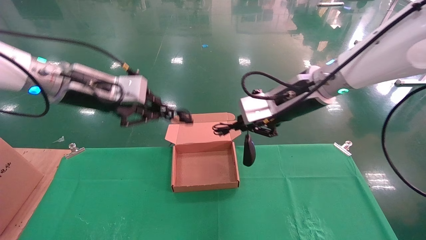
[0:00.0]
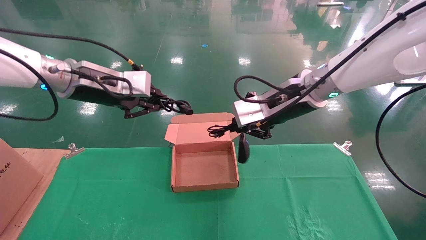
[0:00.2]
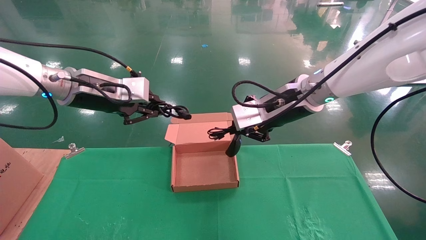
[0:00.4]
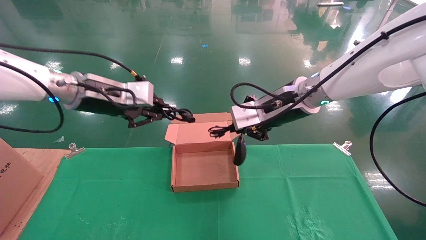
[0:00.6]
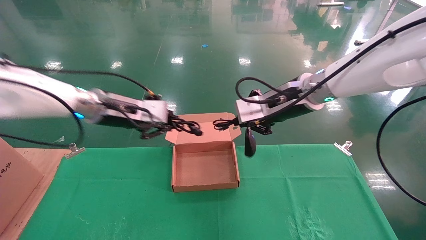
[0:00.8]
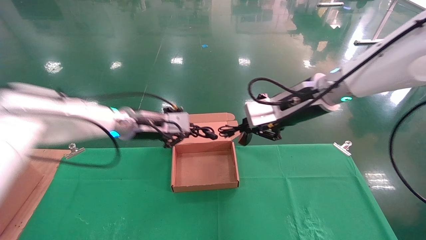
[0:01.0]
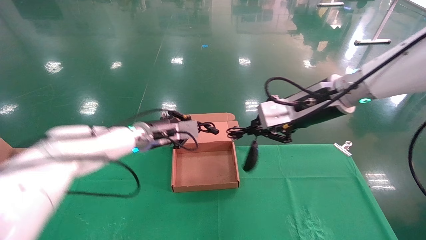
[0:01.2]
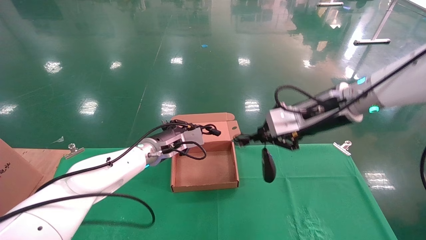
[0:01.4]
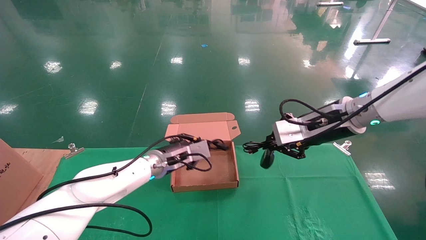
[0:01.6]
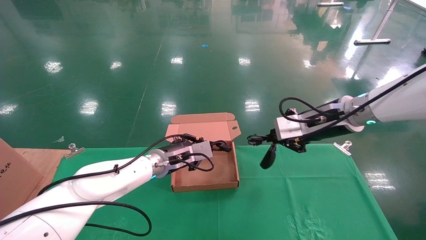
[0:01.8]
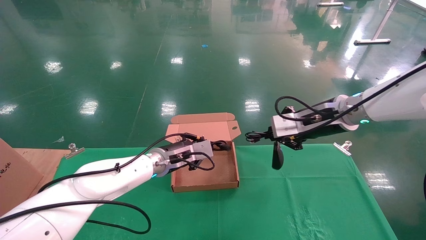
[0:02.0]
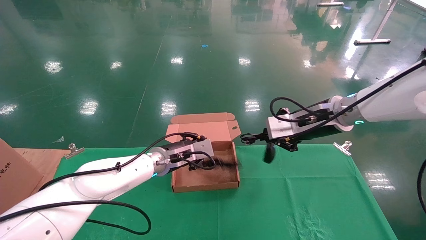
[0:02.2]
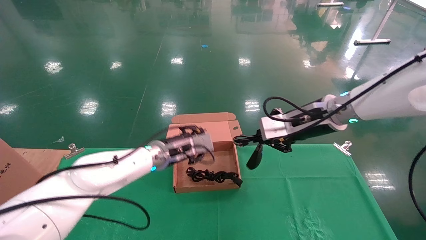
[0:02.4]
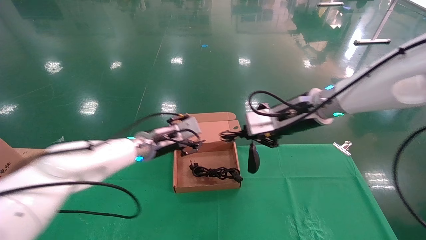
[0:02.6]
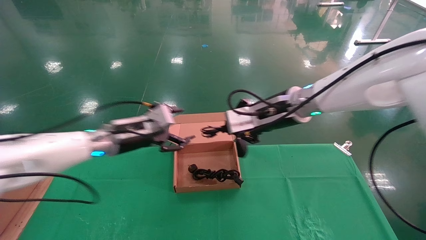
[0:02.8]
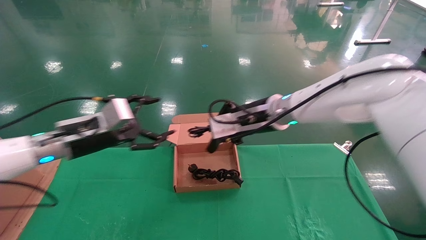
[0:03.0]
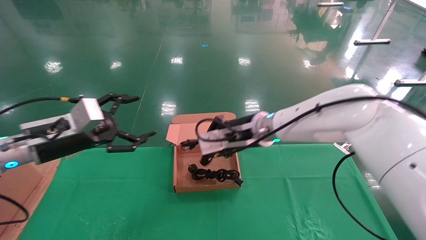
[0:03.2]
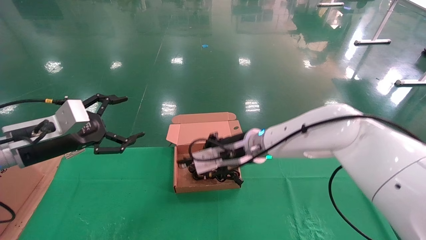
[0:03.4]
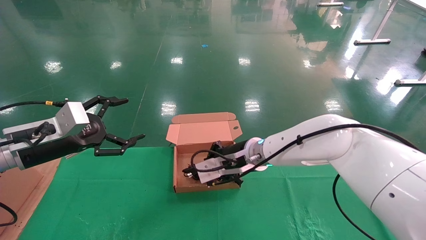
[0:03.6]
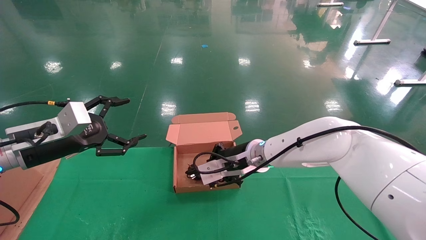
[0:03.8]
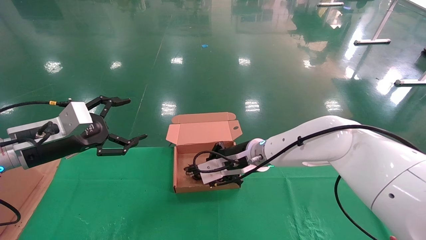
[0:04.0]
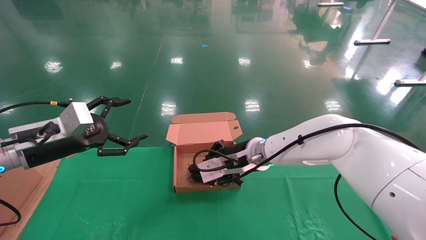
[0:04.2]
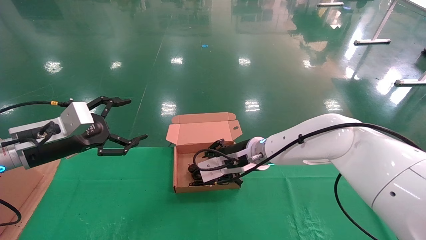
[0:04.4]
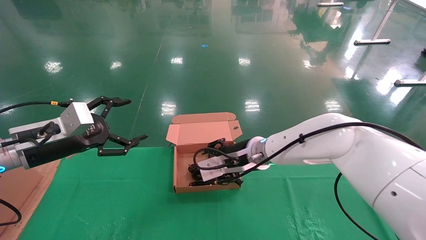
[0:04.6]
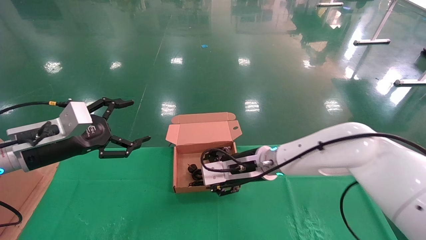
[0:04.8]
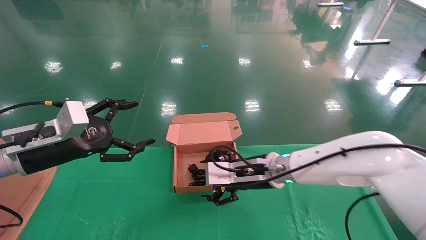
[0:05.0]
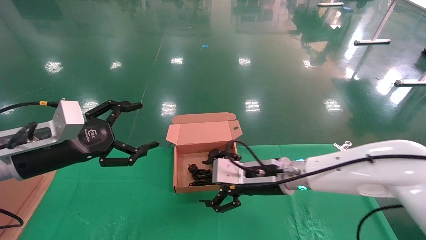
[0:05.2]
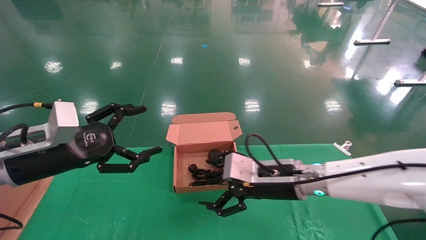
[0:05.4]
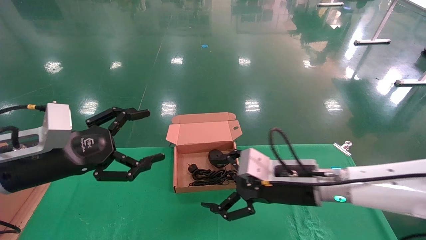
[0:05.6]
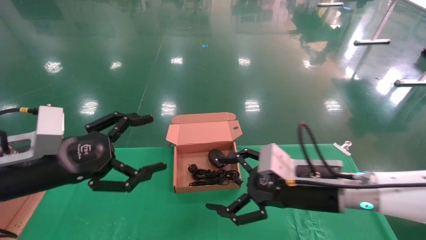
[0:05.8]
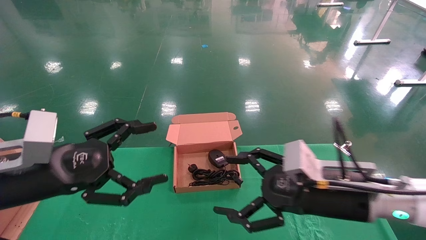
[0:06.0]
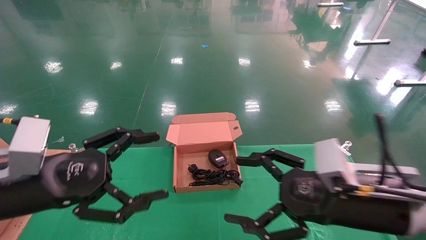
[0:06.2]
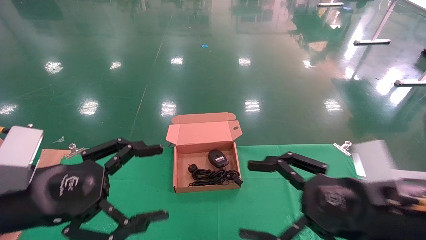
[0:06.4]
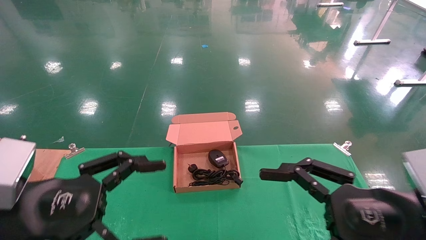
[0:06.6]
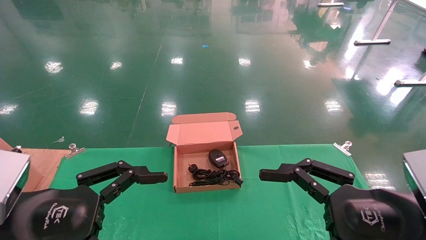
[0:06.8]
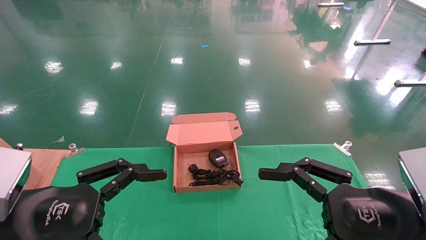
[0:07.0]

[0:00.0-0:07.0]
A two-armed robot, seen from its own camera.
Step, 0:00.2 to 0:05.0: Place the mouse and power cord into the box.
0:00.0 to 0:01.4: The left gripper shifts roughly 20 cm downward, to the right and forward. The right gripper shifts by approximately 5 cm.
0:01.4 to 0:02.8: The right gripper shifts about 10 cm to the left, while the left gripper goes approximately 10 cm to the left and backward, and opens its fingers.
0:02.8 to 0:04.2: The left gripper travels to the left and backward by approximately 15 cm, and opens, while the right gripper heads downward and to the left, covering about 15 cm.
0:04.2 to 0:05.6: The left gripper shifts some 5 cm backward; the right gripper heads backward and to the right, covering roughly 15 cm, and opens.
0:05.6 to 0:07.0: The right gripper moves backward and to the right, roughly 20 cm; the left gripper shifts about 10 cm backward.

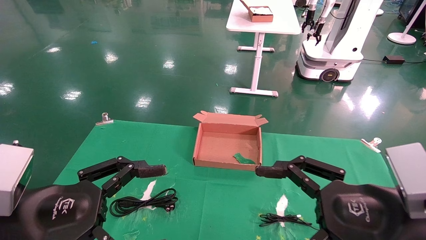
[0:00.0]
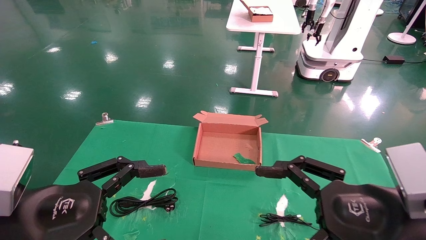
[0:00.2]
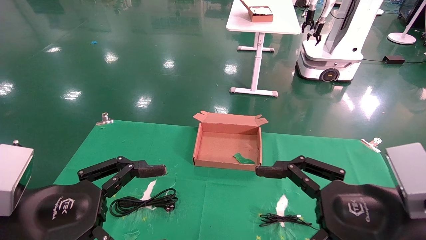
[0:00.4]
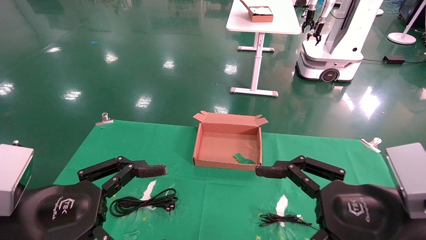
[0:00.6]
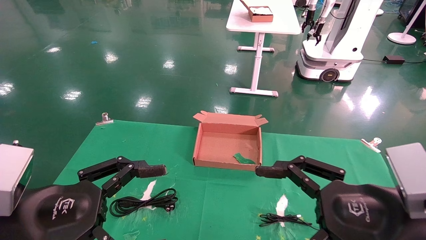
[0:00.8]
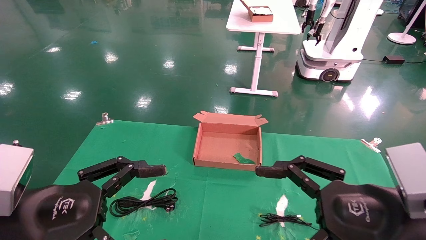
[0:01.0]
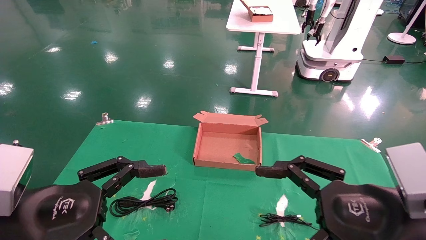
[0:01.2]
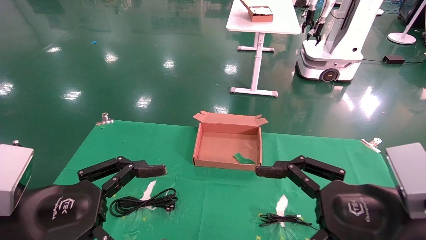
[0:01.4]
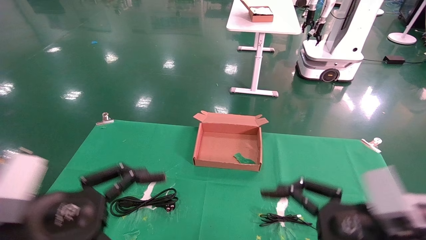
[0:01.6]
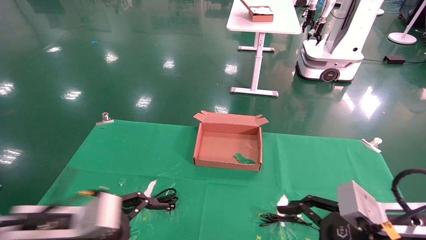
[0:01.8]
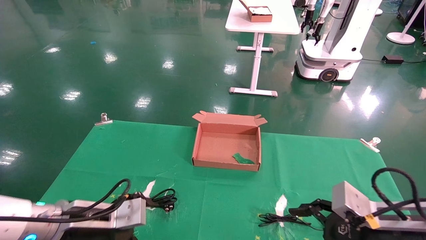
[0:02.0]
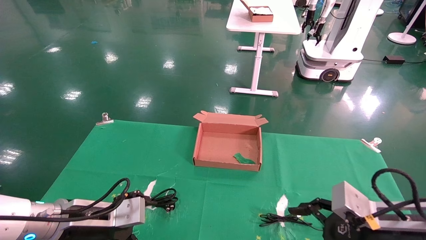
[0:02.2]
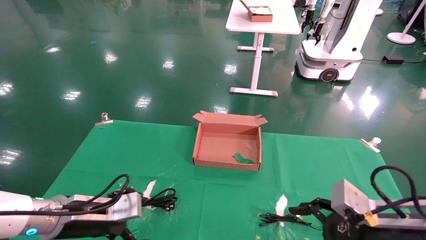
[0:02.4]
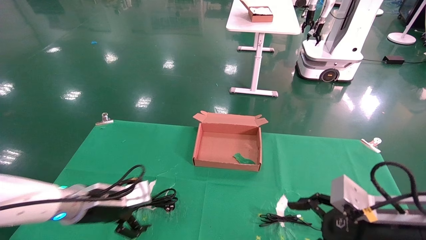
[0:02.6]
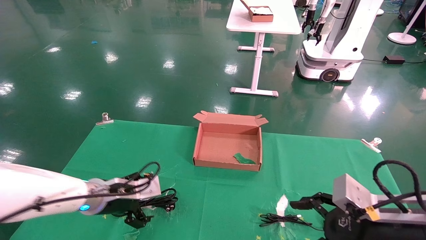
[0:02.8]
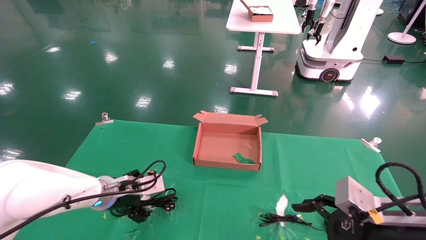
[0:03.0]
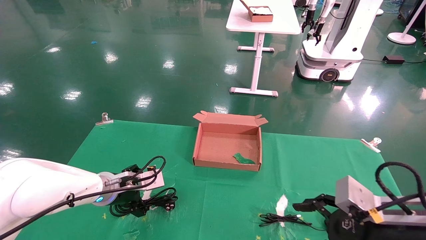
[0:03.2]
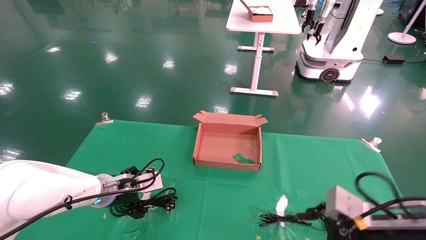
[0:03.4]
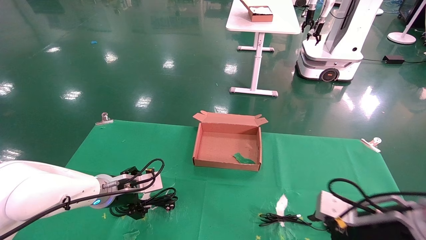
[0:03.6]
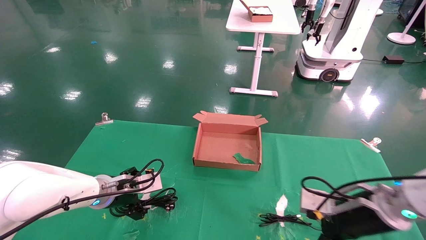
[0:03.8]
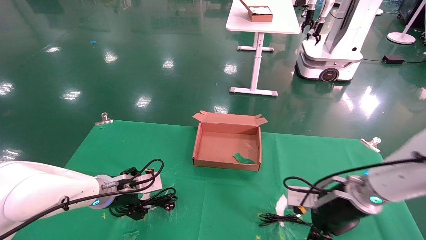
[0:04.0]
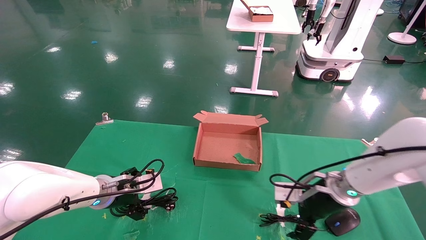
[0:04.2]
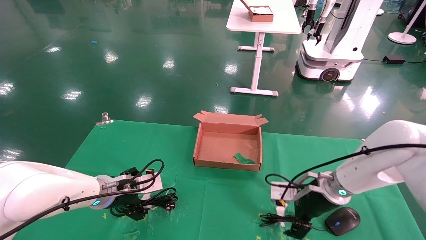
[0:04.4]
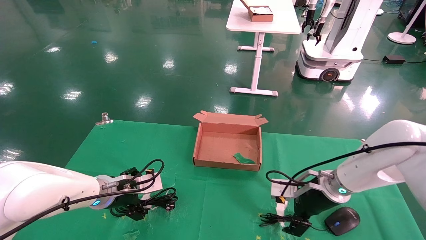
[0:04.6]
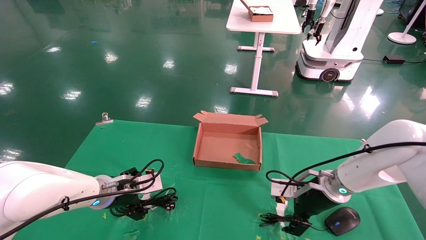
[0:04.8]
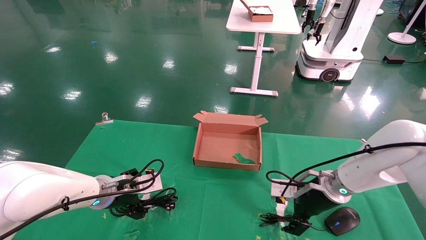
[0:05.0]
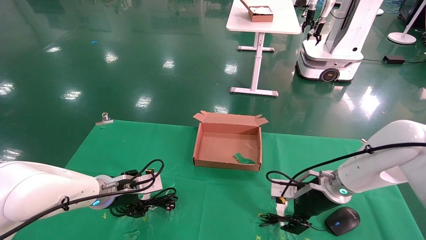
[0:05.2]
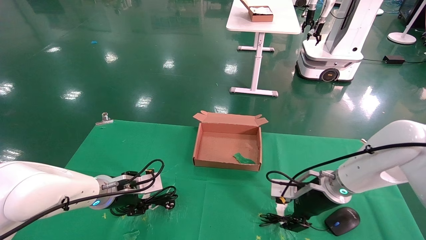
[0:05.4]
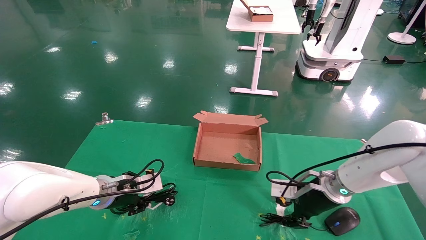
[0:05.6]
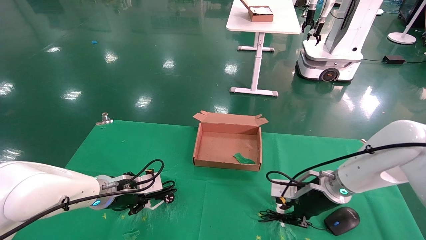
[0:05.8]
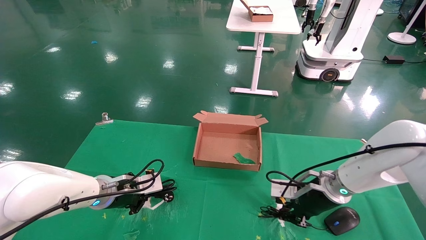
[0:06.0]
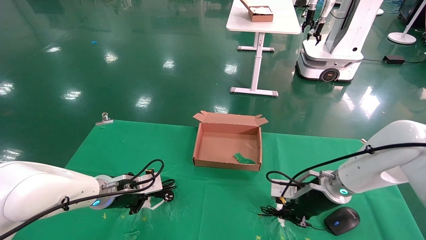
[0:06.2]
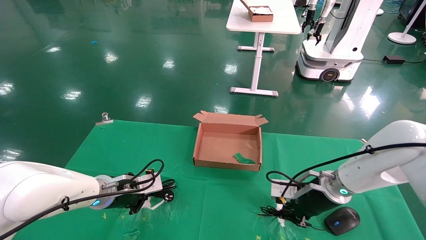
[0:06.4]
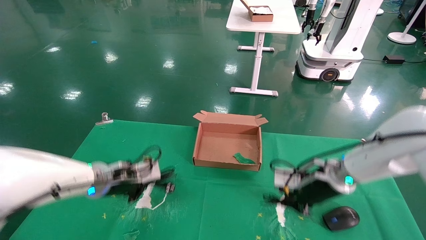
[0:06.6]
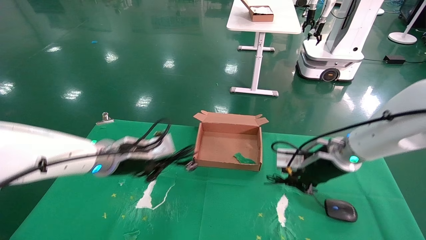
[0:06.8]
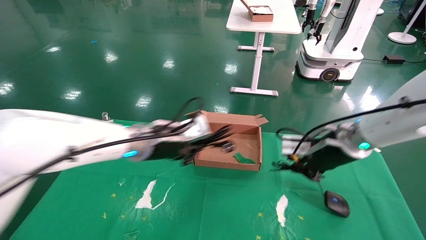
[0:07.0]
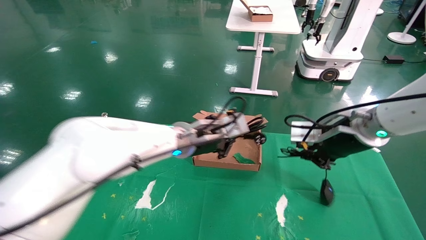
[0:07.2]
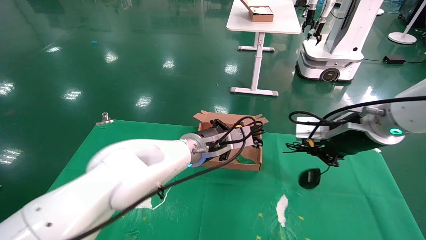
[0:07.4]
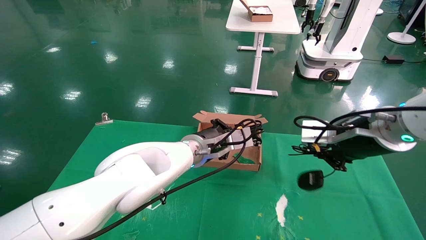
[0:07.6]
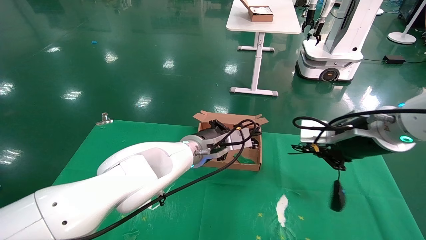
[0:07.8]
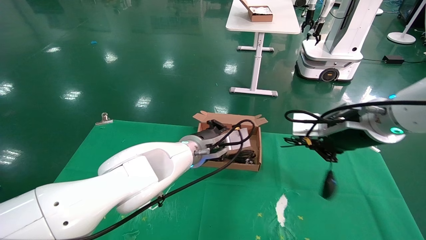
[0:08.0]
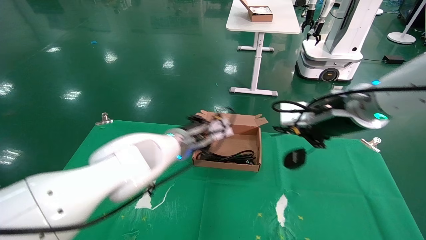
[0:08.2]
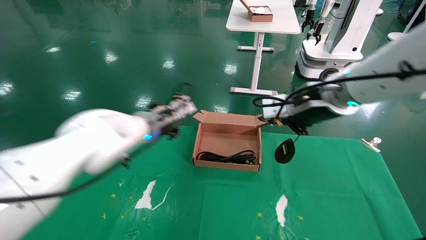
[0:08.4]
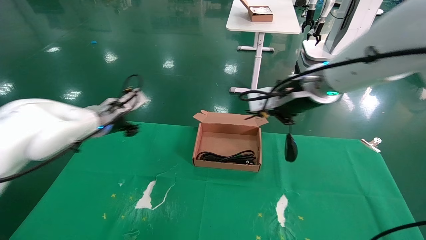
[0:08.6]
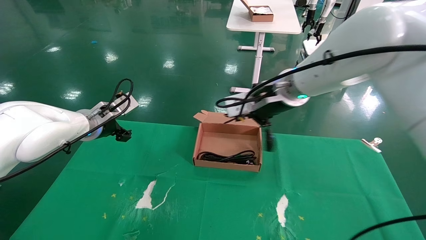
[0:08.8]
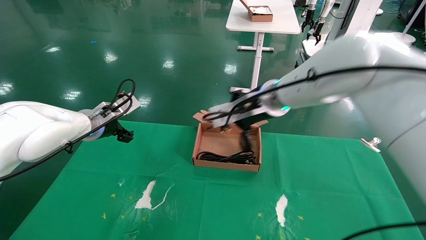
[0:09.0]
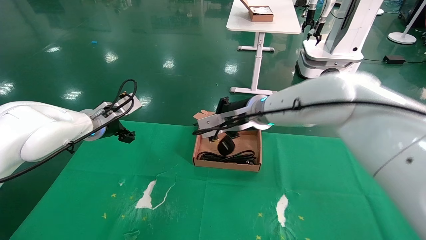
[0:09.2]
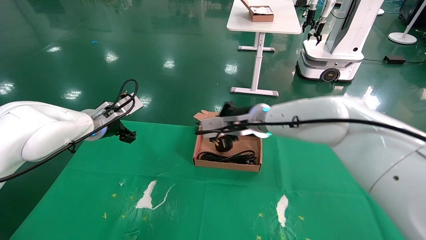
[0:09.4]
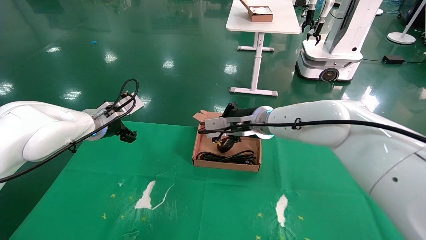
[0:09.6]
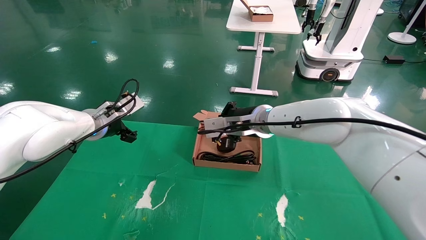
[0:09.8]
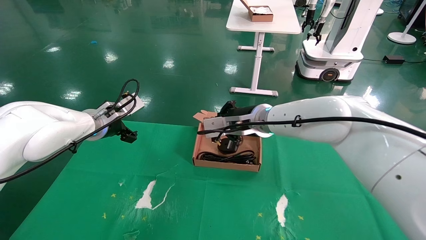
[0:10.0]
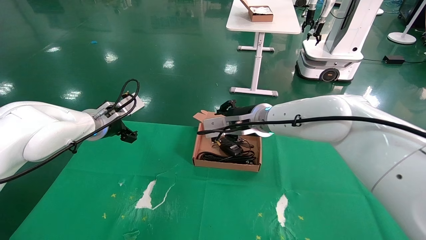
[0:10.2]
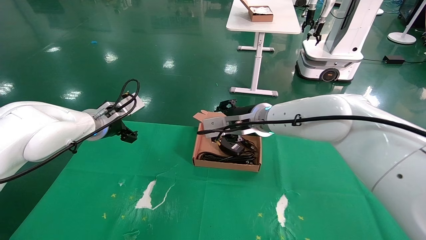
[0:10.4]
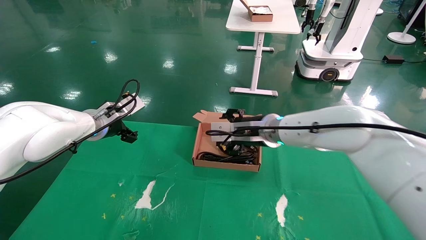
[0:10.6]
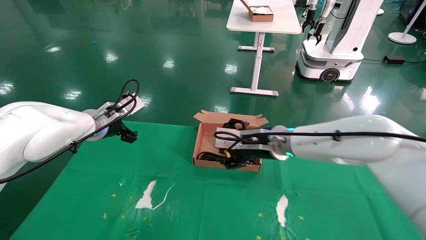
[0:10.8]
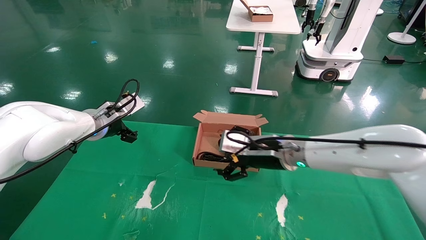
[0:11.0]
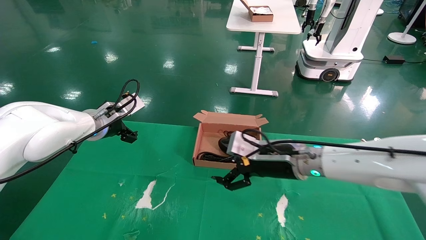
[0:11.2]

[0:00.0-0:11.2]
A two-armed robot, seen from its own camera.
Step, 0:02.2 to 0:06.6: Grab and lift both the mouse and power cord from the accessory packaging area at the same time.
Step, 0:06.8 to 0:10.4: Place the mouse and power cord into the box.
0:00.0 to 0:01.6: The left gripper shifts by roughly 5 cm.
0:01.6 to 0:03.2: The right gripper changes place by approximately 5 cm, while the left gripper travels forward by some 20 cm.
0:03.2 to 0:04.8: The right gripper shifts approximately 20 cm forward.
0:04.8 to 0:06.4: The right gripper closes, while the left gripper closes its fingers.
0:06.4 to 0:08.0: The right gripper is displaced upward and backward by roughly 20 cm. Meanwhile the left gripper heads to the right and upward, covering about 20 cm.
0:08.0 to 0:09.6: The right gripper shifts approximately 20 cm to the left and forward. The left gripper moves to the left, some 20 cm, and opens.
0:09.6 to 0:11.2: The right gripper is displaced backward, downward and to the right by roughly 10 cm, and opens up.
